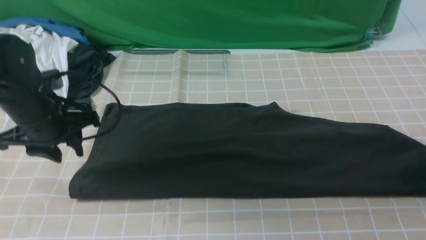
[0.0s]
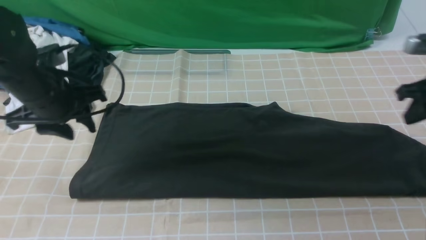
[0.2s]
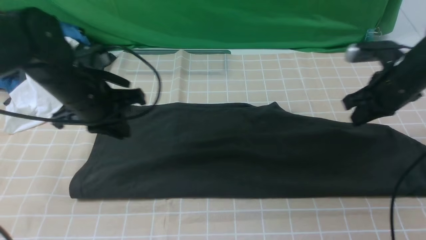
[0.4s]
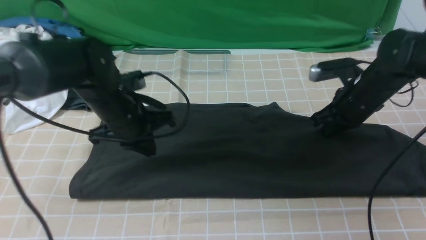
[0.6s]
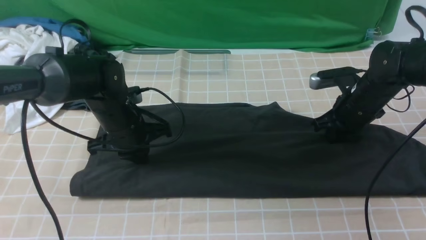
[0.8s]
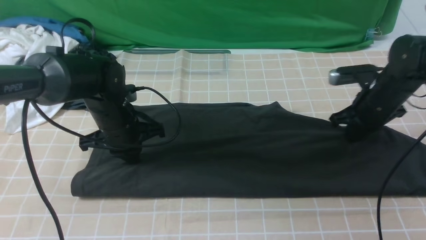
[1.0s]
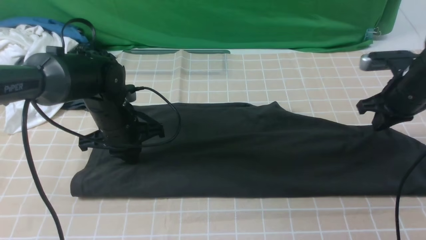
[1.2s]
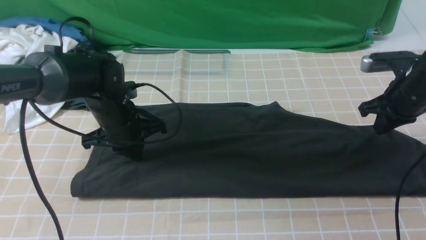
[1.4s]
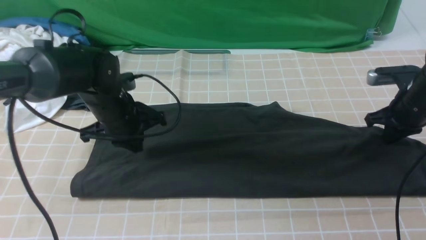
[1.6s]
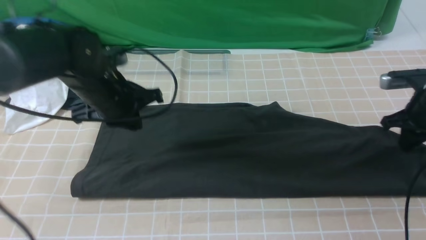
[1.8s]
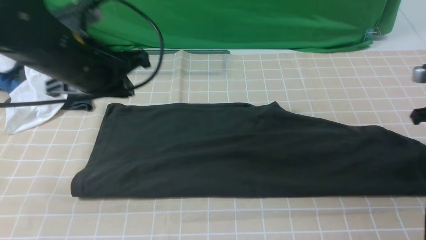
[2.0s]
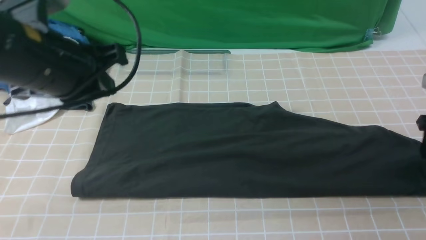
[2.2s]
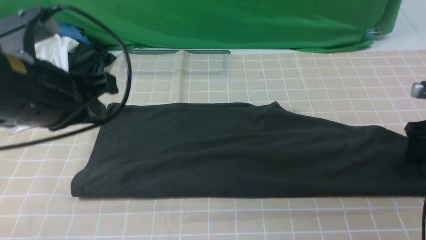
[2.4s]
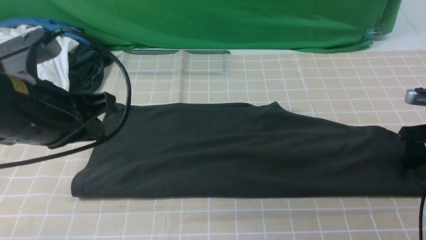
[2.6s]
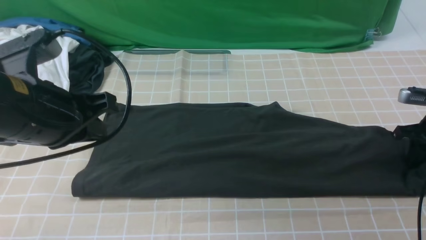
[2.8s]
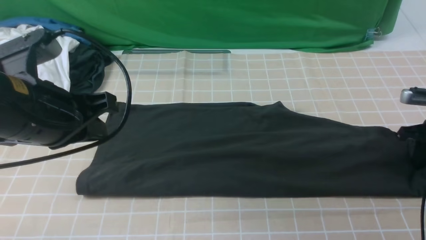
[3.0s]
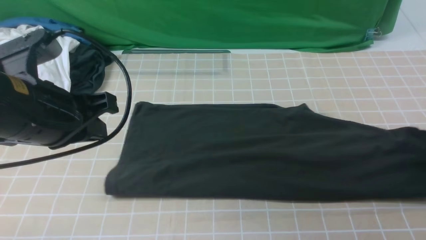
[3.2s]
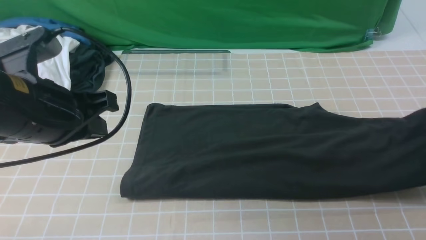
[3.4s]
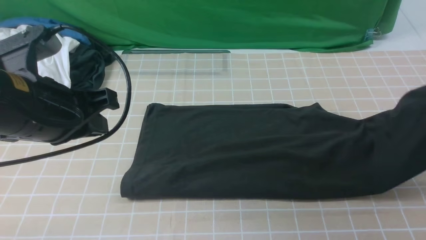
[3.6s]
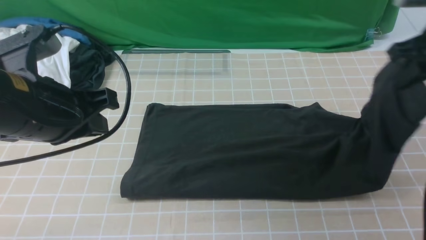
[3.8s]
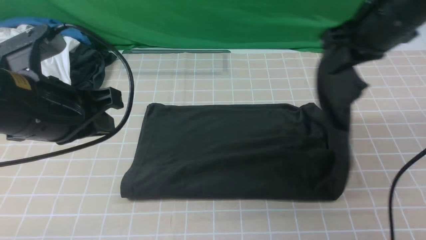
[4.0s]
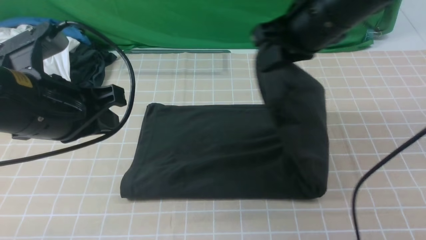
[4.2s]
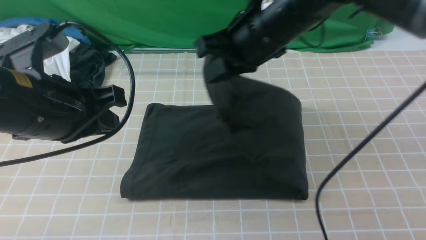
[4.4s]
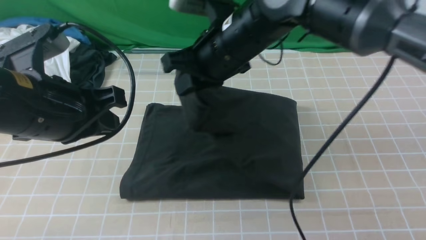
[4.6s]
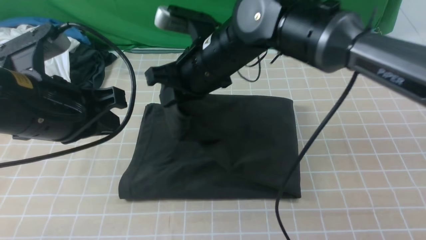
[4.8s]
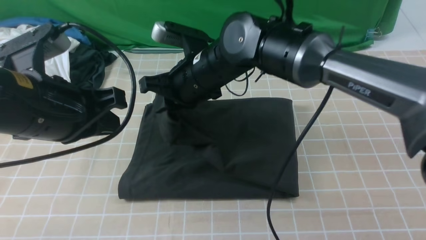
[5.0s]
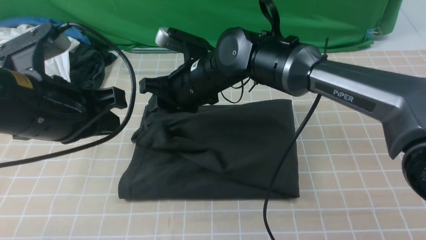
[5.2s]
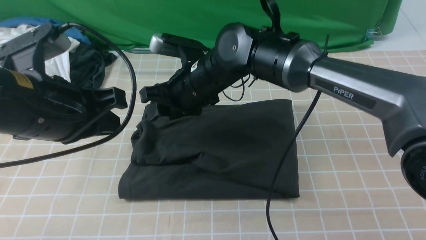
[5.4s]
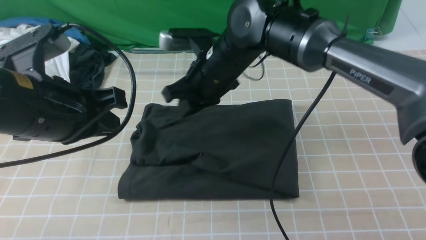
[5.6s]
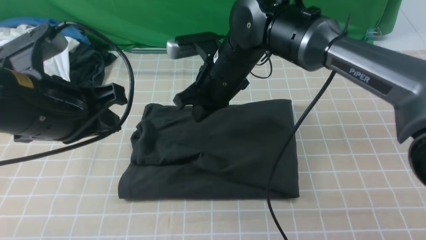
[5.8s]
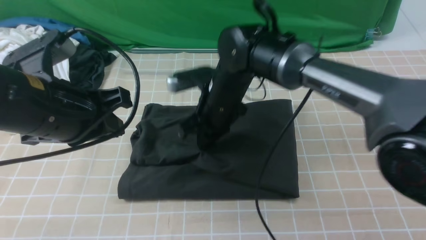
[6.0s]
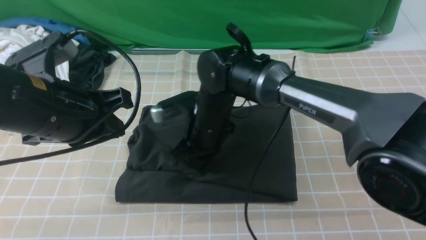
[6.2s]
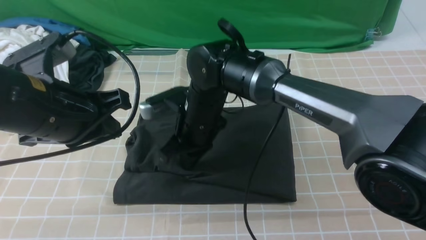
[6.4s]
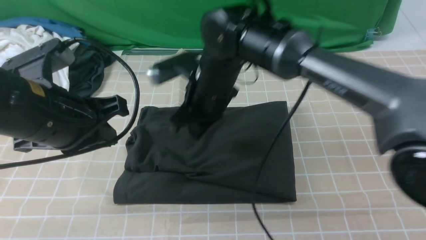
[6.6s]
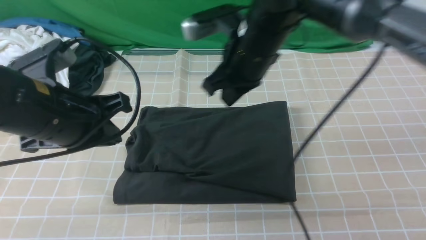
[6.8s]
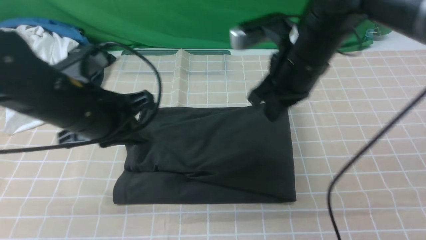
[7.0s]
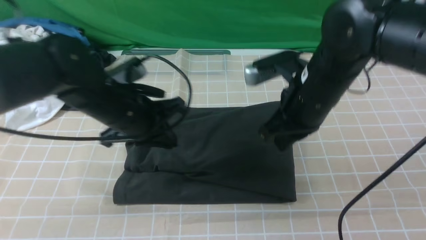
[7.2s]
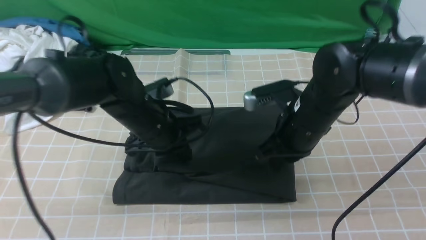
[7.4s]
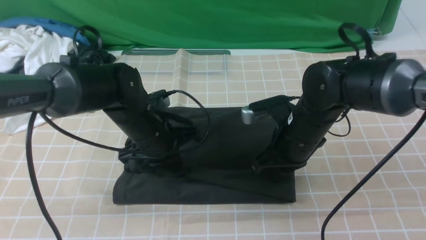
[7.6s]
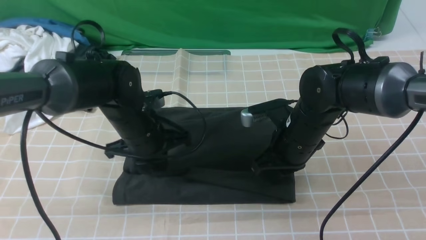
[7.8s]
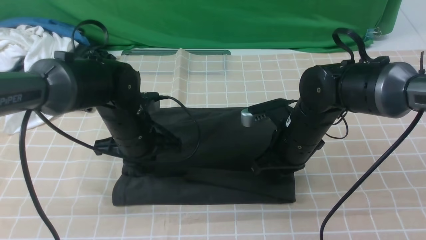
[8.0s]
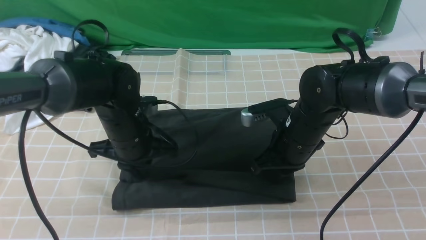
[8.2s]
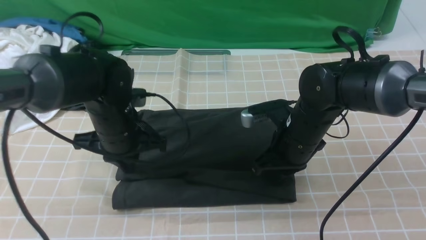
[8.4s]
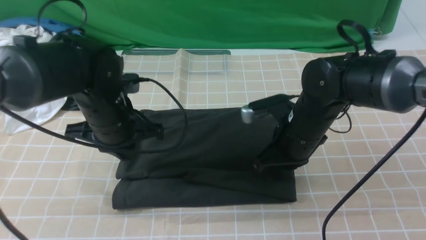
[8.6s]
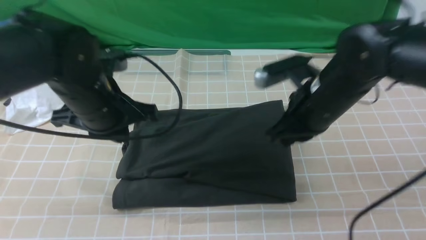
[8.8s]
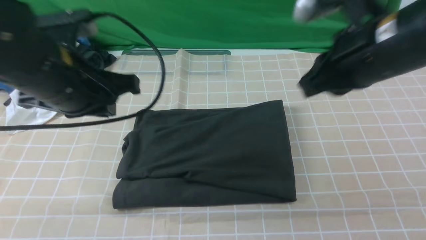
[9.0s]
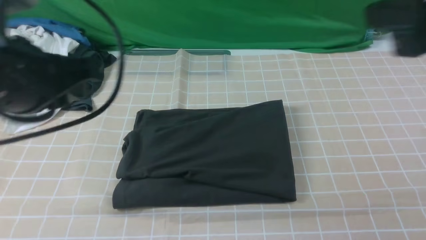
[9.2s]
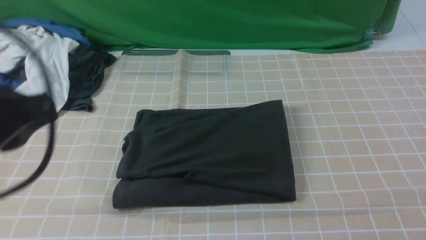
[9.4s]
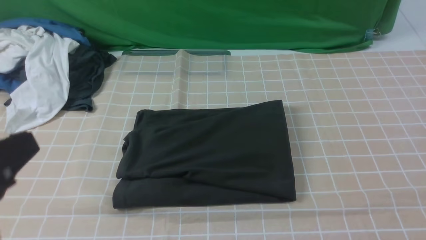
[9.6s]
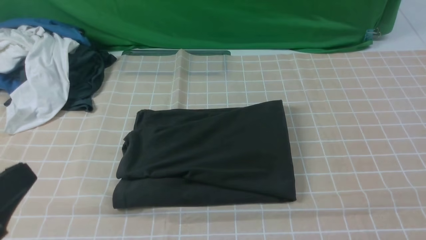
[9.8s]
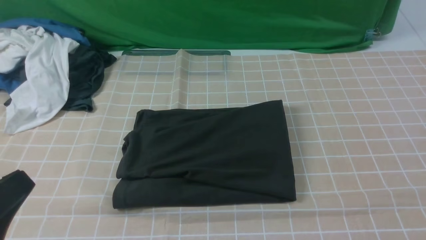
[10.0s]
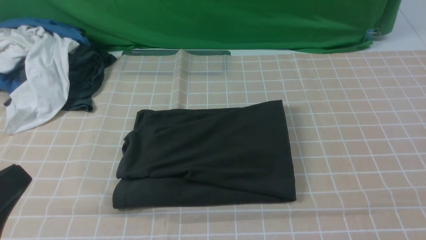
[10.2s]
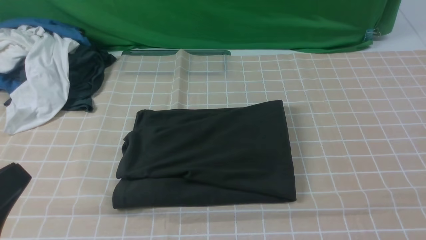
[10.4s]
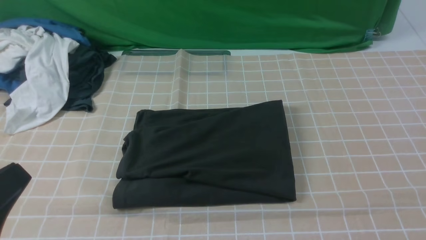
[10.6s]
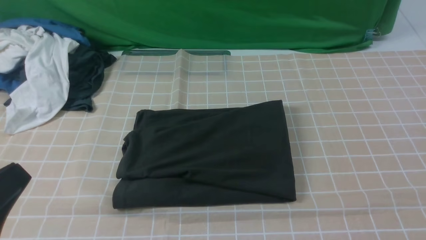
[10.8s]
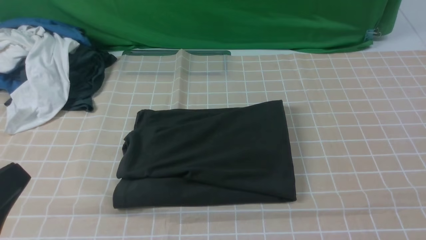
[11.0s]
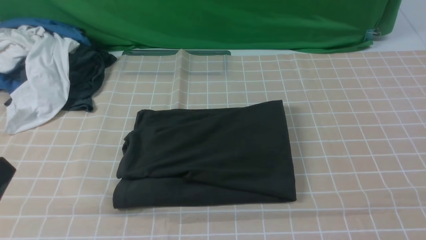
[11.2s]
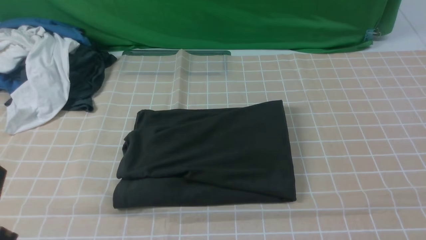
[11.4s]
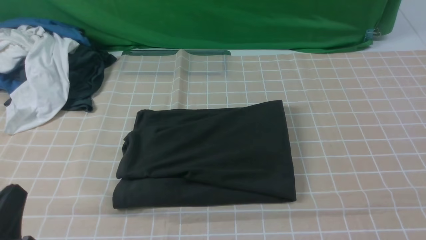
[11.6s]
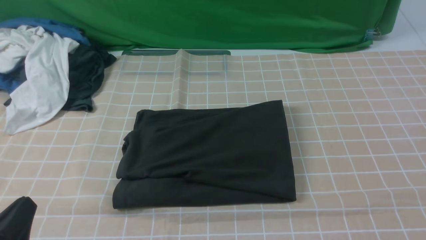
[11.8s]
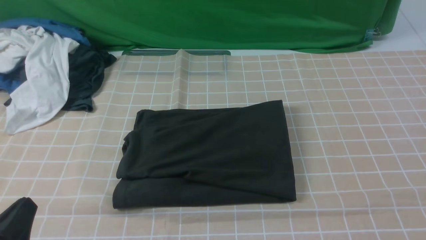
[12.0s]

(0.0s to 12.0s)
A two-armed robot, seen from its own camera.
Step, 0.0s - 2.8s: use the right arm to clamp the right edge of the fabric.
Step, 3.0s - 5.2s: use the right arm to drag the right edge of the fabric to the left and folds it over the left edge.
0.0s - 1.6s: The right gripper heads to the left, covering about 5 cm, and closes its fingers; the left gripper travels to the right by about 10 cm, and closes.
1.6s - 3.0s: The left gripper heads backward and upward, covering some 20 cm; the right gripper heads to the right, covering roughly 5 cm, and opens, then closes once more.
3.0s - 4.4s: The right gripper heads to the left and upward, covering some 40 cm.
4.4s - 6.0s: The right gripper heads downward and to the left, covering roughly 15 cm, and opens and closes again.
6.0s - 7.6s: The right gripper is displaced to the right and backward by some 15 cm, while the left gripper travels downward, forward and to the right by roughly 20 cm.
7.6s - 9.0s: The left gripper goes some 20 cm upward and backward. Meanwhile the right gripper moves upward, roughly 20 cm.
9.0s - 10.4s: The left gripper goes some 20 cm backward. The right gripper goes approximately 30 cm backward and to the right.
10.4s - 12.0s: The left gripper heads downward, covering approximately 10 cm.

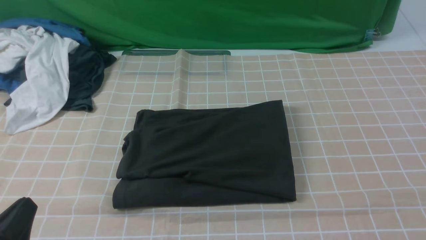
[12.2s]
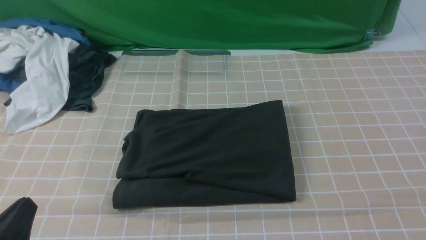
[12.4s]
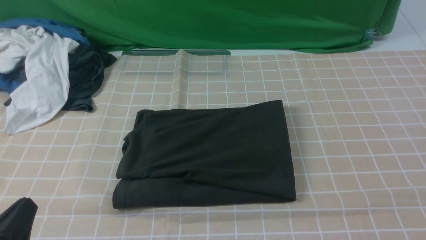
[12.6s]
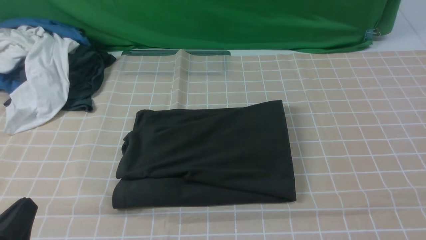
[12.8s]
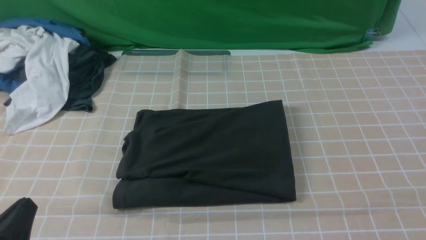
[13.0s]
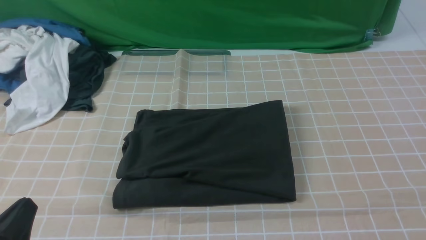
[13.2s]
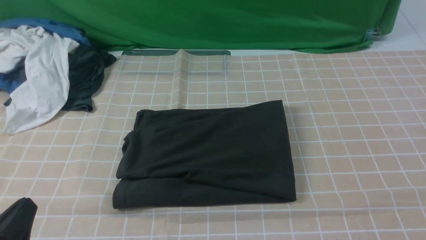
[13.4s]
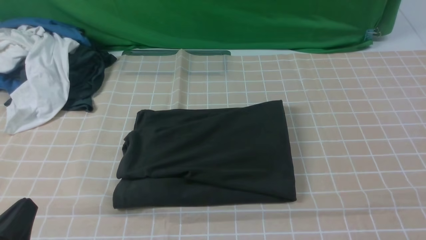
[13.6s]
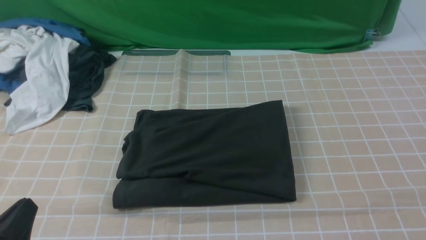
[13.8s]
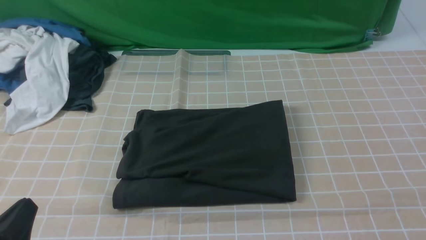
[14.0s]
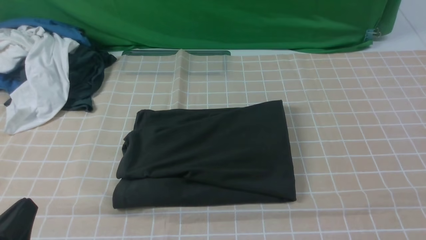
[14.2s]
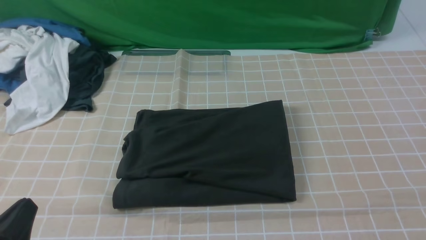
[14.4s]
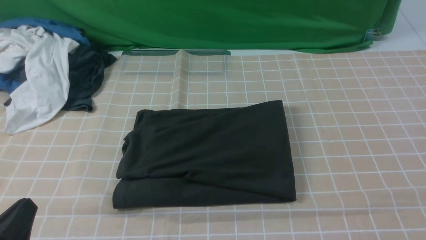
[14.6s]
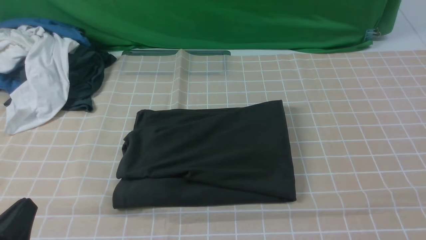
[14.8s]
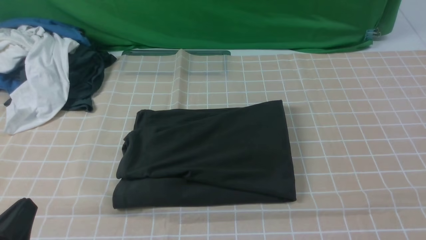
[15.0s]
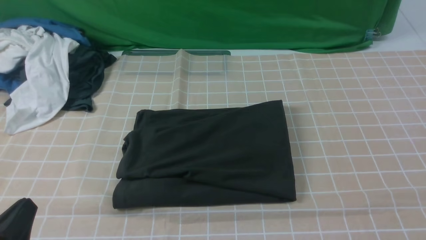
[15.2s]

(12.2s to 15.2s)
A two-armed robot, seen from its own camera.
13.8s - 15.2s: Both grippers stay put.
